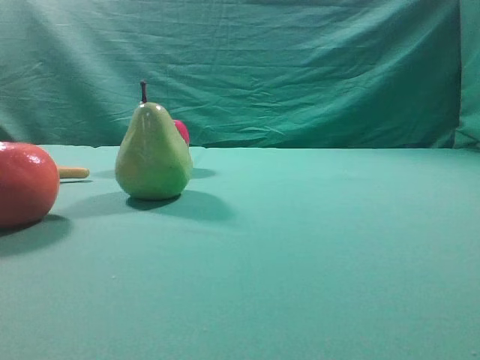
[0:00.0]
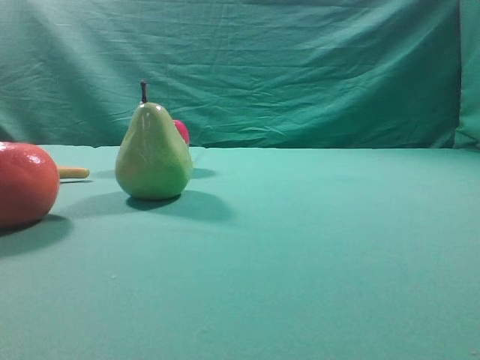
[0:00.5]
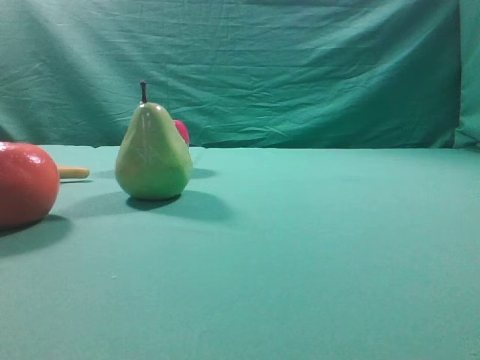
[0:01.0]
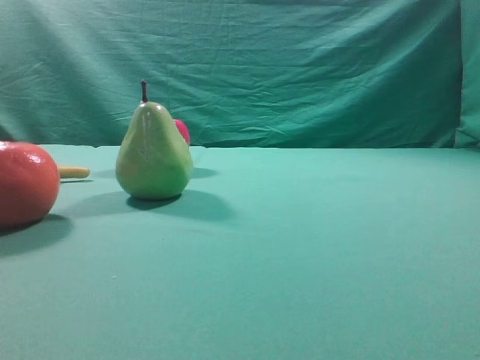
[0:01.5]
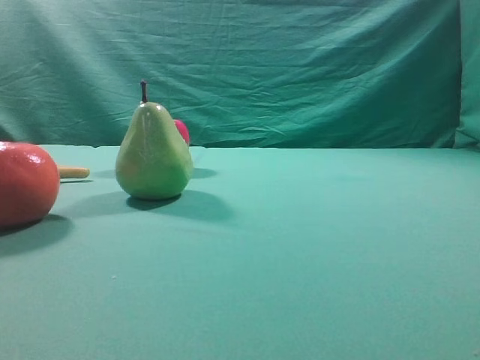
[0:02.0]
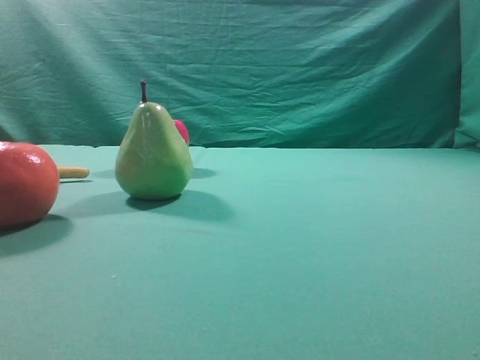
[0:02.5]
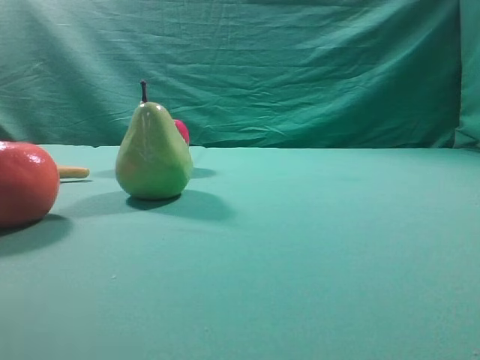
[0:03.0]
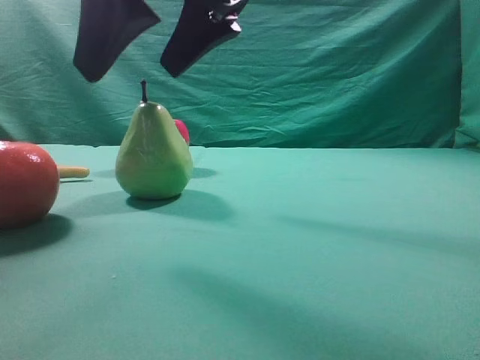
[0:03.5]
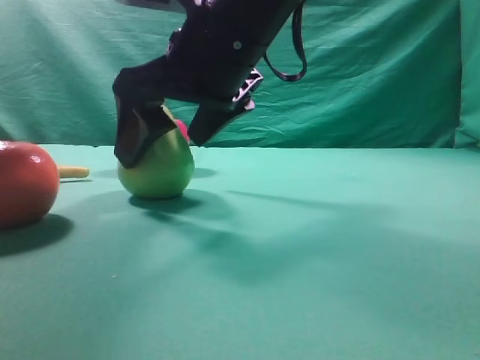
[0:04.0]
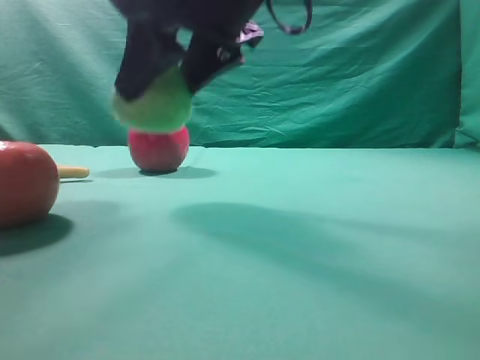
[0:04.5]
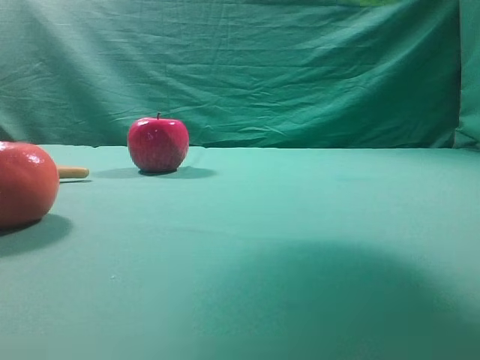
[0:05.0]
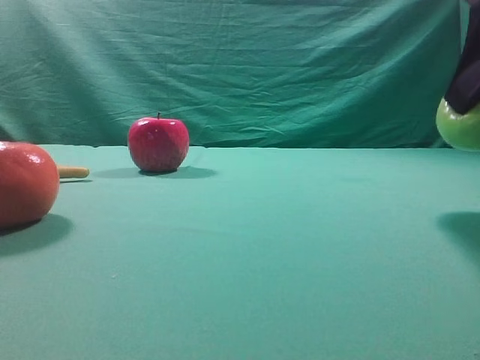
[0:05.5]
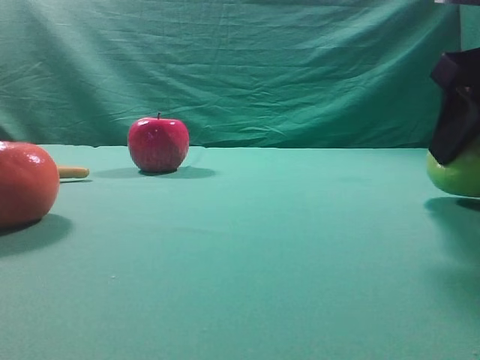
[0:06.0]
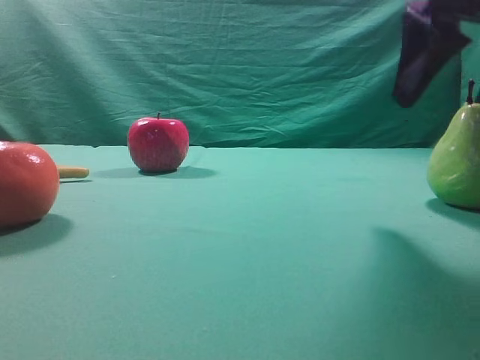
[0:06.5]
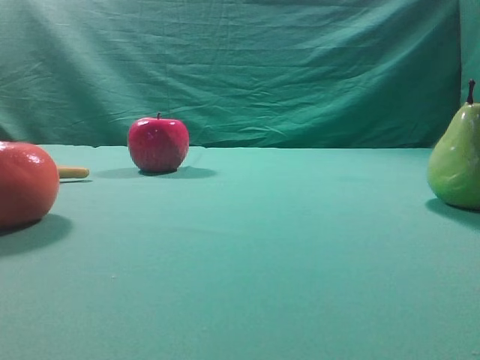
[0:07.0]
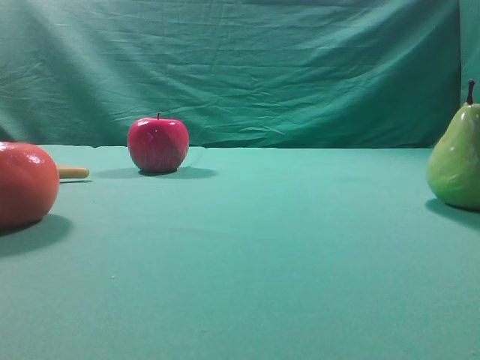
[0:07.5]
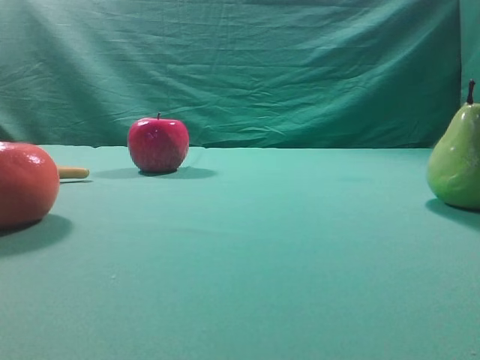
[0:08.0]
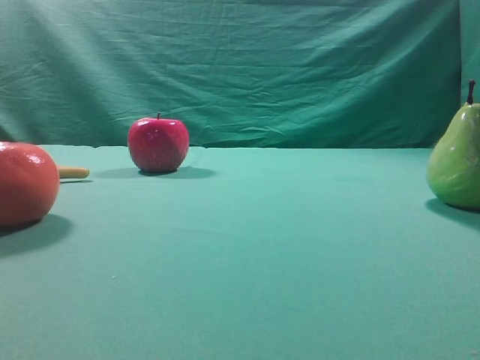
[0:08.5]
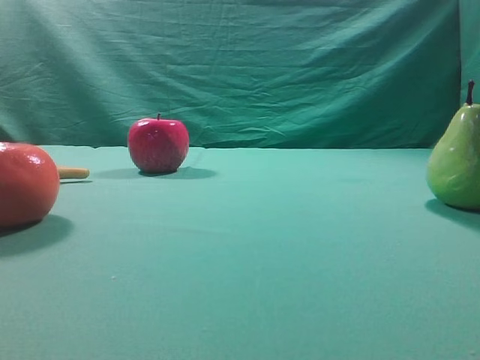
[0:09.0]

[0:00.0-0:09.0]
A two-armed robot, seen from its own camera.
Task of the whole recording: Grasp the pear and place it on one side of the table.
Step, 0:00.0 to 0:04.0: Grasp the high-fiber fruit.
Step, 0:04.5 to 0:06.0: Place it on the right side of the table.
